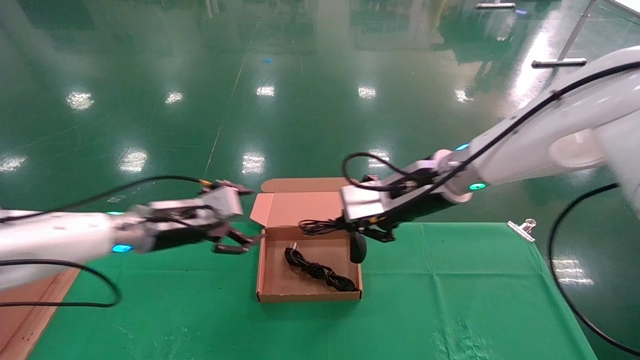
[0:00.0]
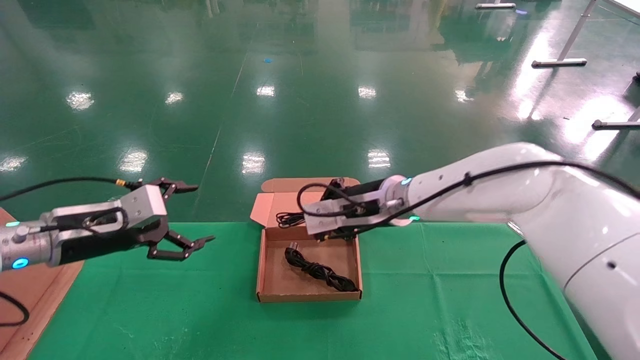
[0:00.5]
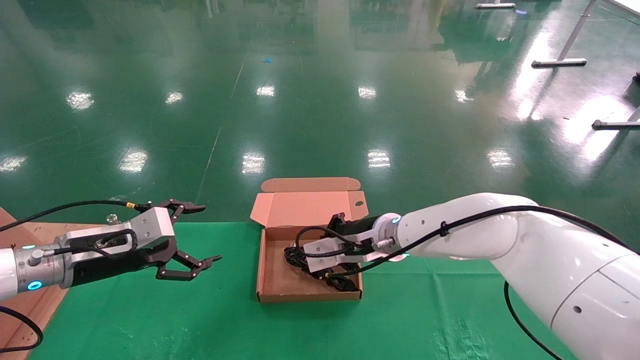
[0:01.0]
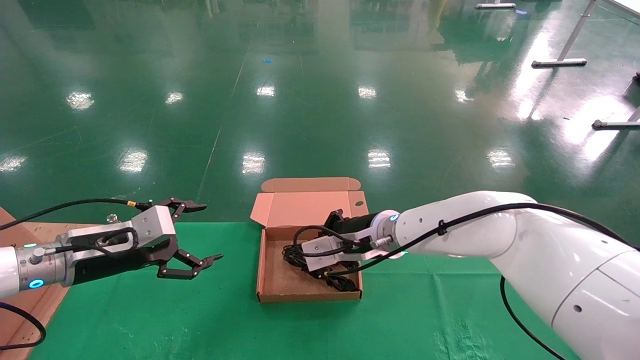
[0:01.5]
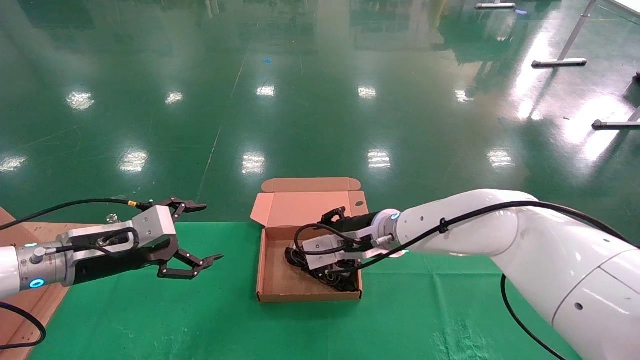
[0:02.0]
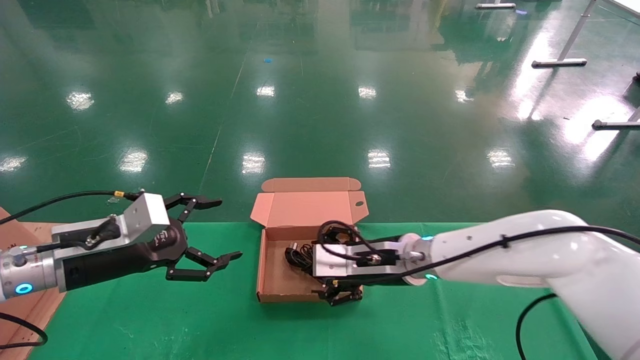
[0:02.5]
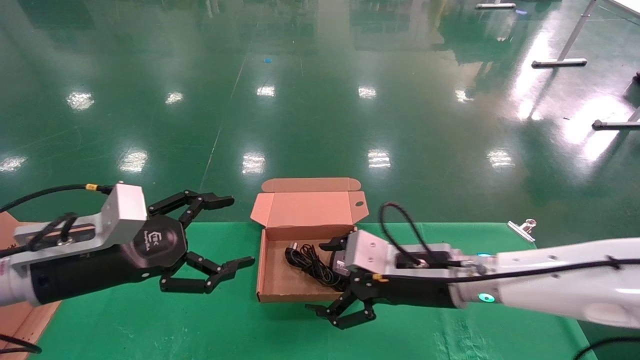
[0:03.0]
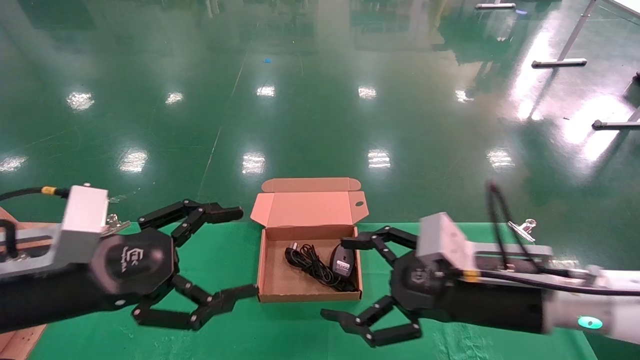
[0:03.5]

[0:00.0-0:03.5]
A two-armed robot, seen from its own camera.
Step, 0:00.0 to 0:02.5: Place the mouse and power cord into the box.
0:00.0 to 0:02.0: The left gripper goes roughly 10 cm to the left. Meanwhile the right gripper heads downward and to the left, covering some 10 cm.
0:02.0 to 0:03.5: The grippers both shift backward and to the right by approximately 20 cm. The right gripper opens.
